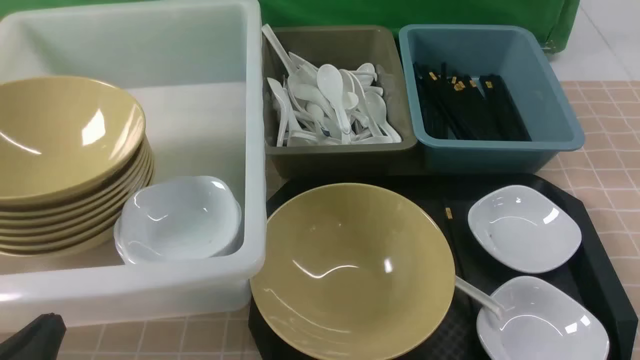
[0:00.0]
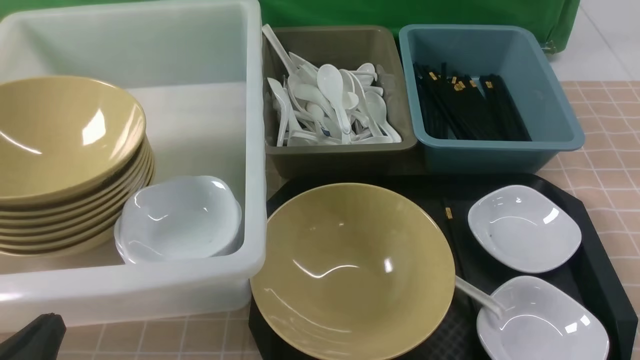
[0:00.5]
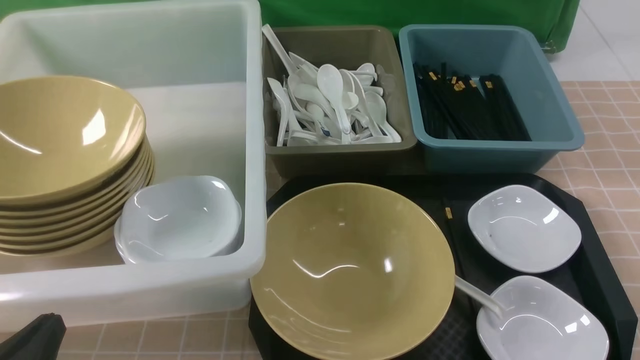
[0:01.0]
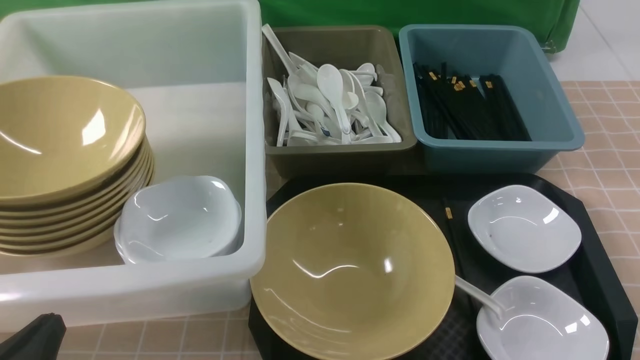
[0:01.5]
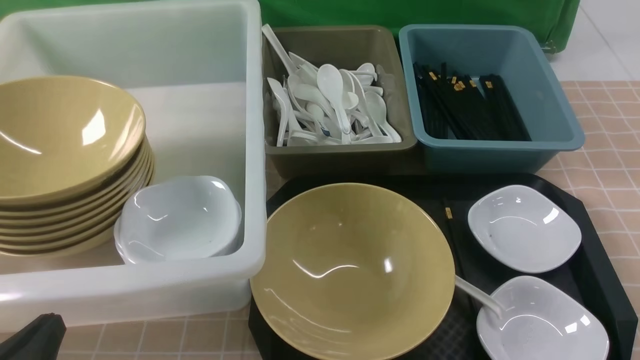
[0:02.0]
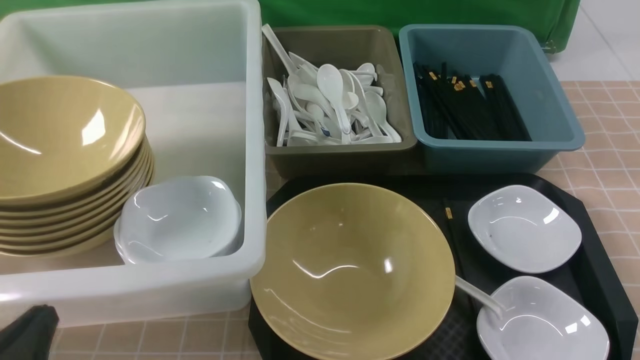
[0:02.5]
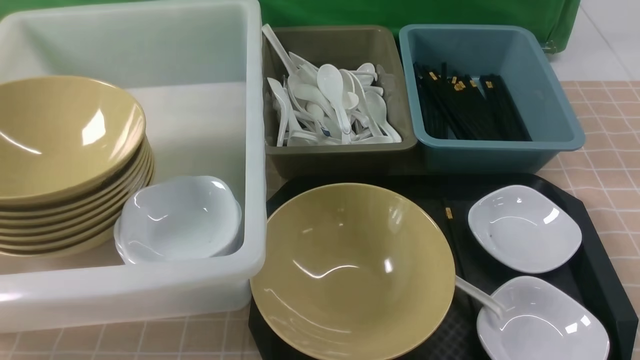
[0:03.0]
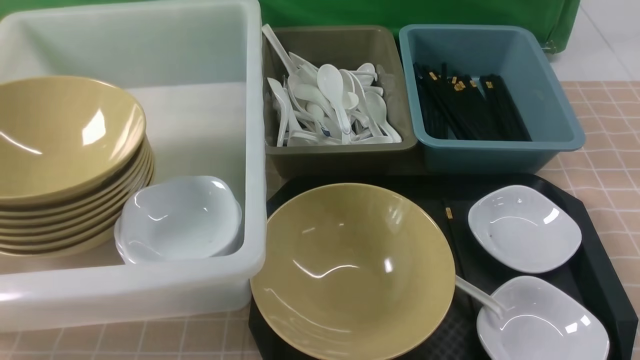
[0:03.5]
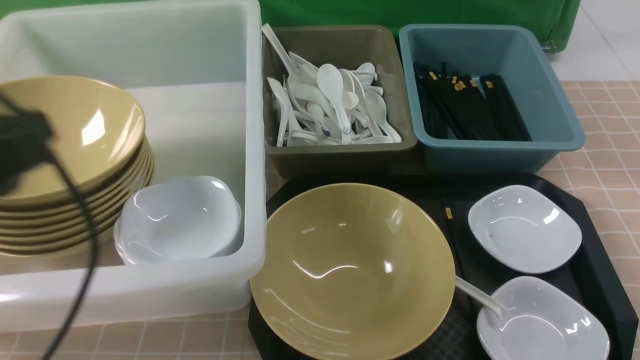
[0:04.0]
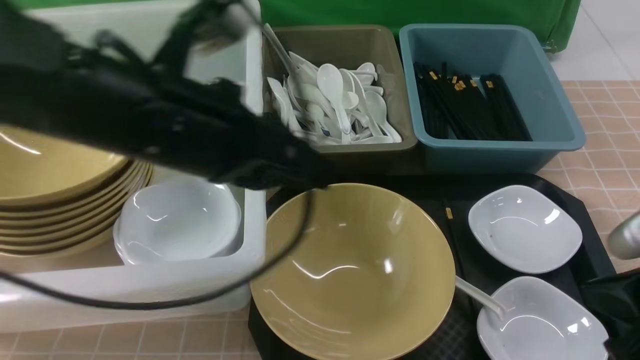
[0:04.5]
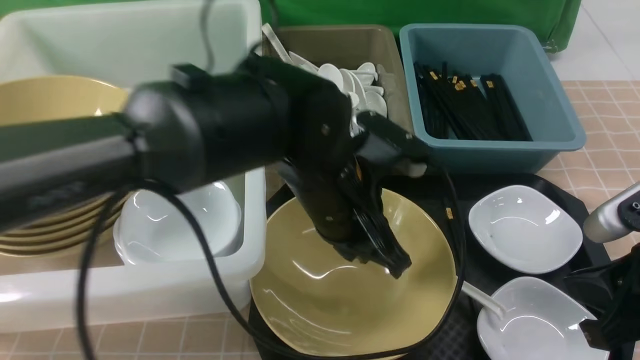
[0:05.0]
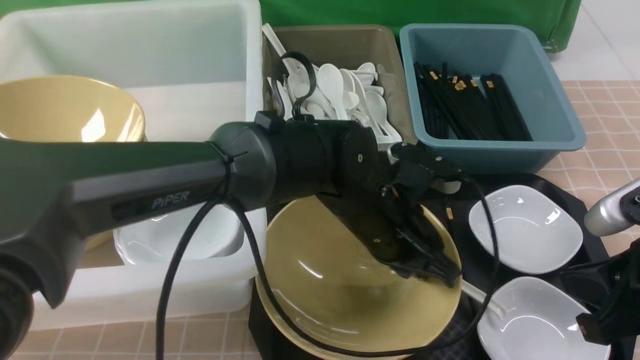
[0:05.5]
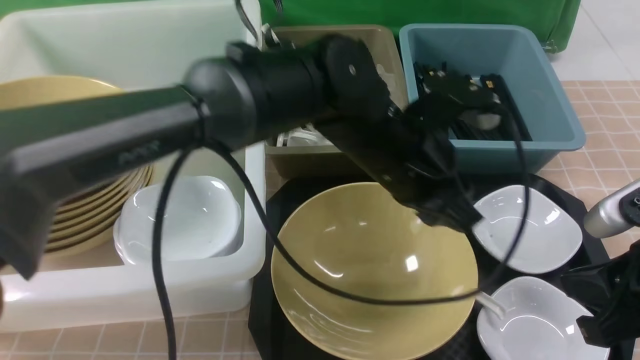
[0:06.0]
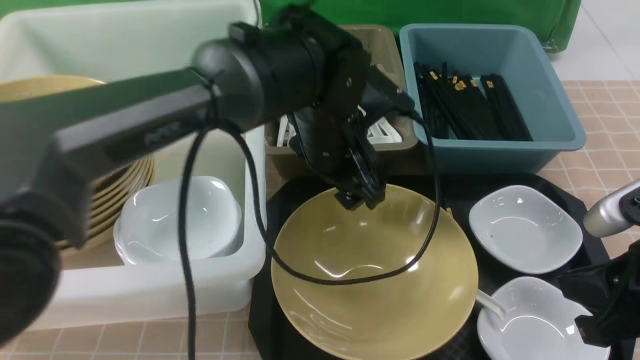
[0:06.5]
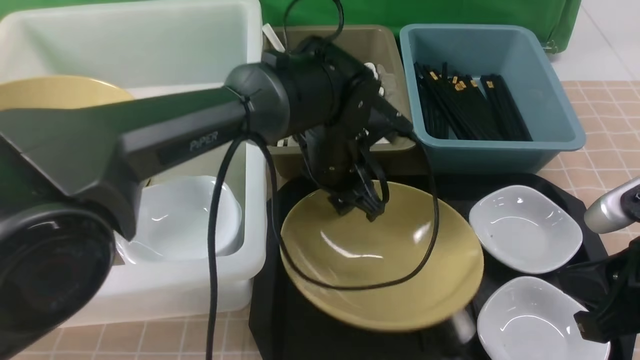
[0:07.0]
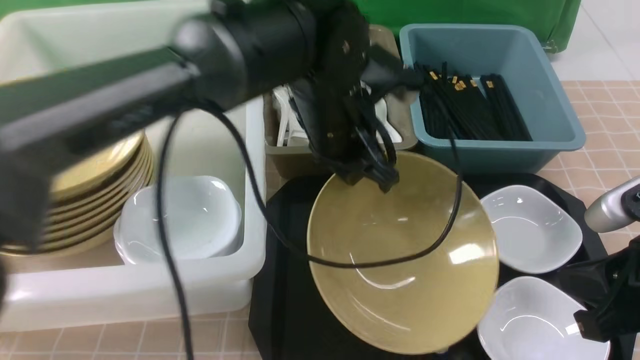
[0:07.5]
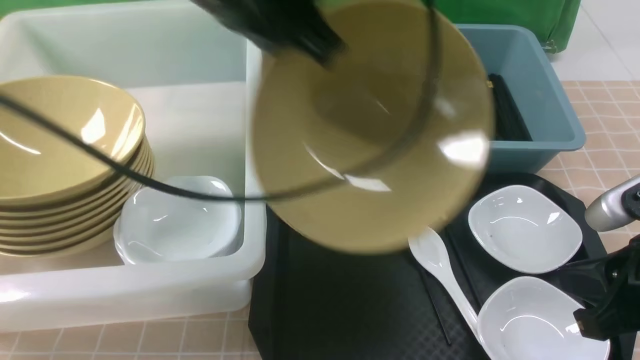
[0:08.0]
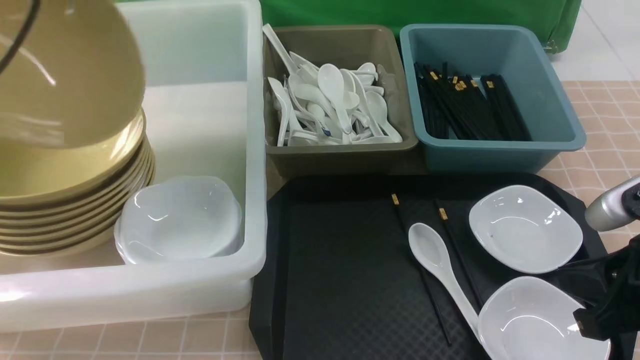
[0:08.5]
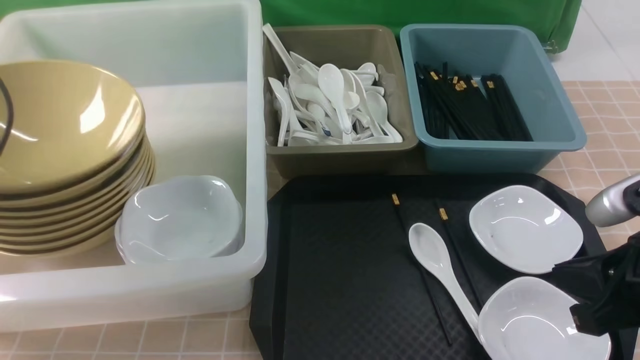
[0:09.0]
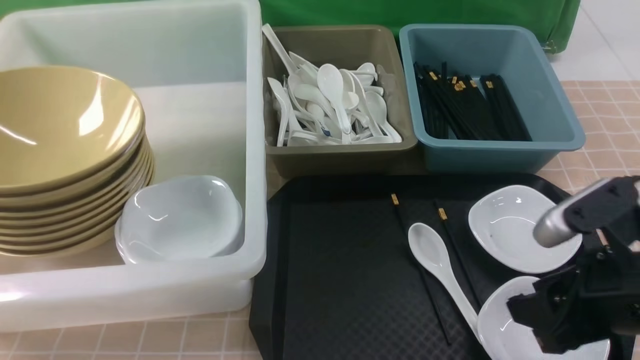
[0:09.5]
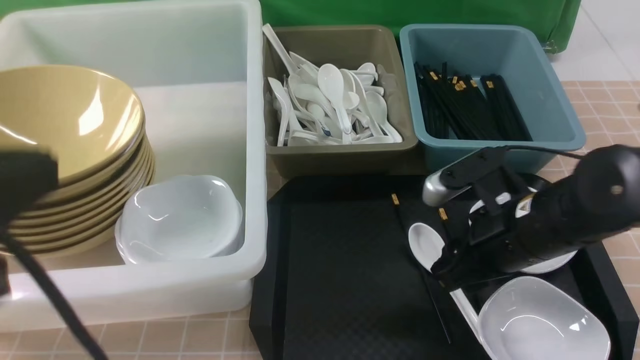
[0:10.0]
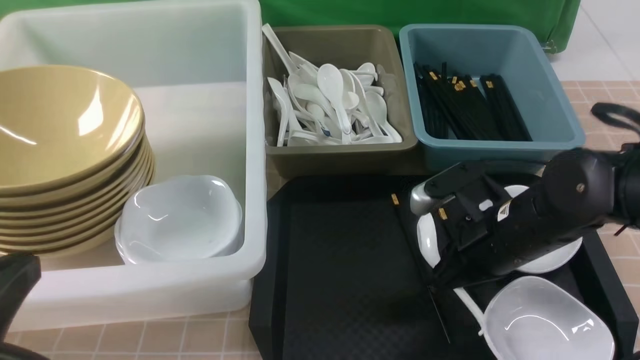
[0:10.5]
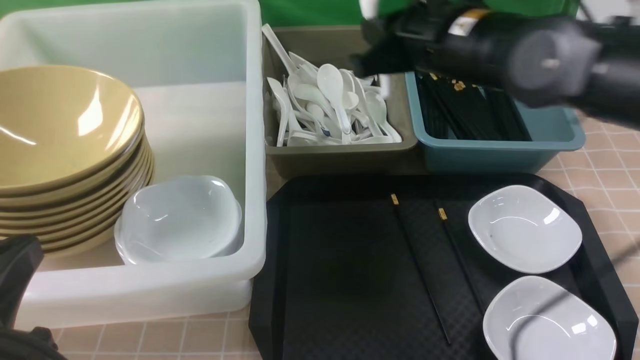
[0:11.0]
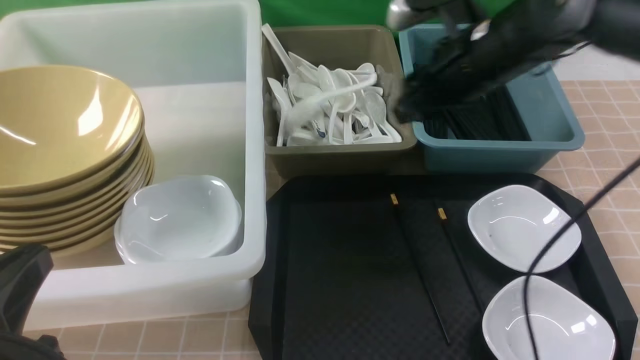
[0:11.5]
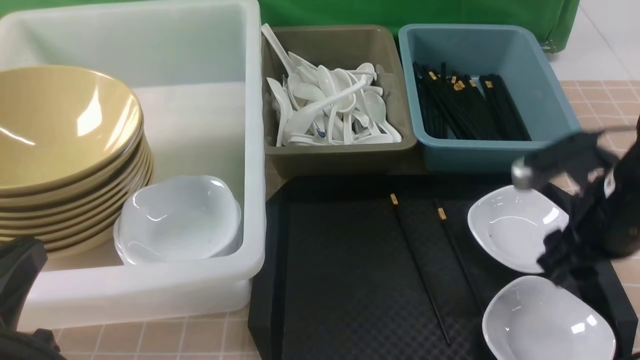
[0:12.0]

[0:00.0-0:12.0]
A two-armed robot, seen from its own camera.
Task of the whole recording: on brown table put chopsticks spoon bowls plates into blue grey white boxes.
Step, 0:00.0 to 0:07.0: use the left arm to grab the yellow noodle bowl on the left.
Step, 0:07.5 to 0:09.0: use the left arm to put the noodle bowl into the large storage box on the left.
Step, 0:09.5 to 0:10.5: use the right arm to grab the soup spoon in the middle.
Step, 0:11.0 to 0:11.5: use the right arm to put the soup spoon into the small storage box in the middle.
0:02.0 to 0:04.0: The right gripper goes approximately 15 cm upward, while the left gripper is displaced upward and forward by roughly 20 cm.
0:04.0 to 0:06.0: The left gripper moves to the right and forward, approximately 30 cm, and opens up, while the right gripper is displaced downward and to the left by approximately 10 cm.
0:06.0 to 0:08.0: The left gripper goes roughly 25 cm upward and to the left, and closes.
0:08.0 to 0:10.0: The right gripper shifts some 15 cm forward, to the left and downward, and opens up. Meanwhile the left gripper goes some 20 cm backward and to the left, and opens, then closes once more.
0:10.0 to 0:12.0: The left gripper goes some 10 cm downward, while the right gripper shifts some 10 cm to the right, and closes, then opens again.

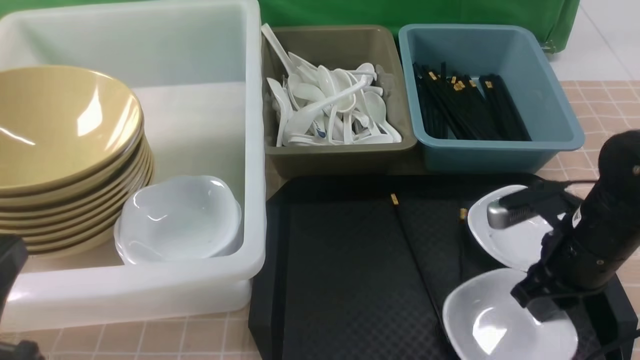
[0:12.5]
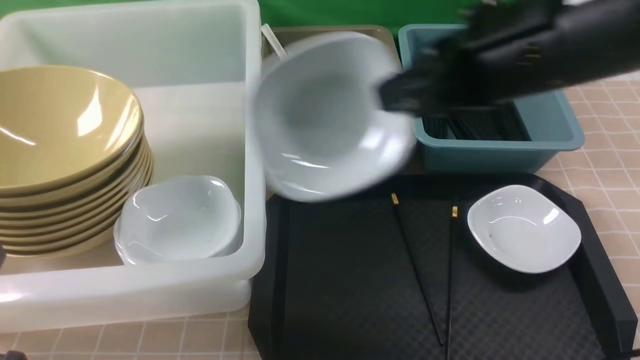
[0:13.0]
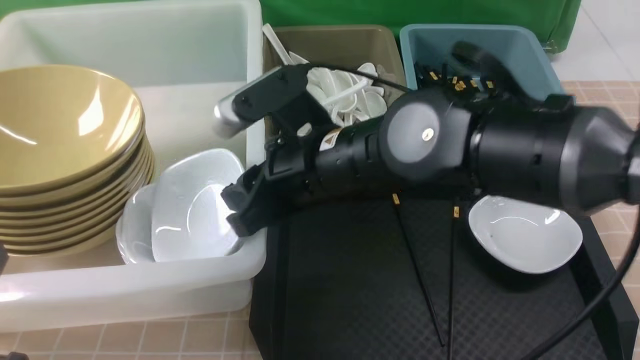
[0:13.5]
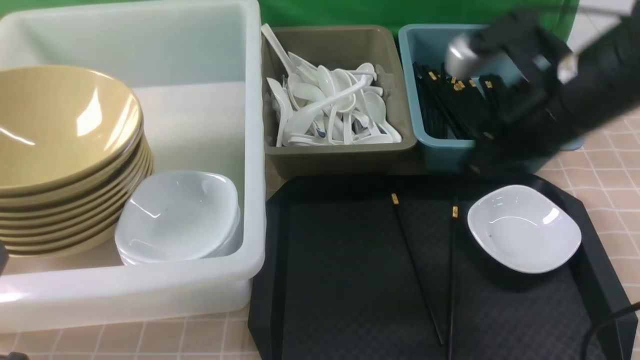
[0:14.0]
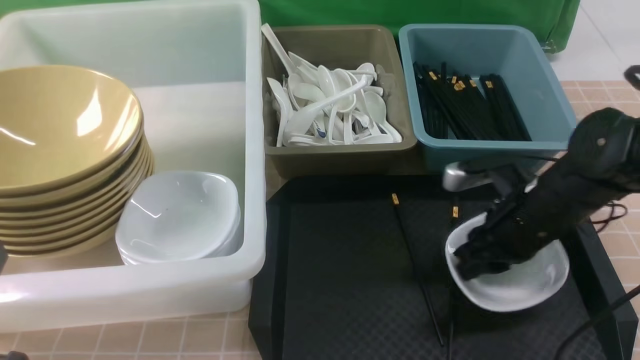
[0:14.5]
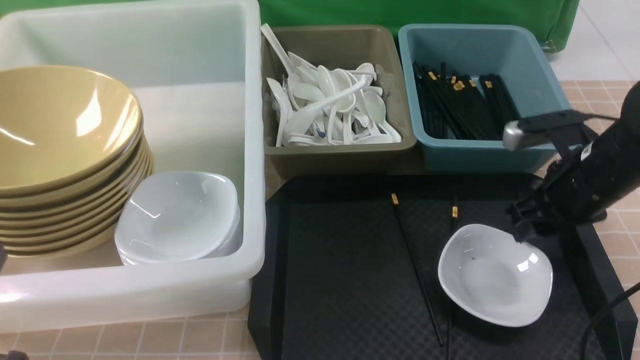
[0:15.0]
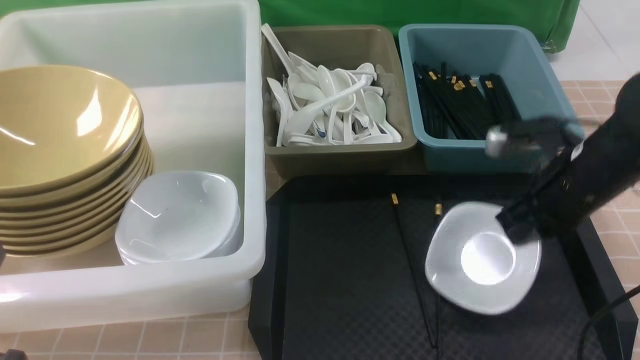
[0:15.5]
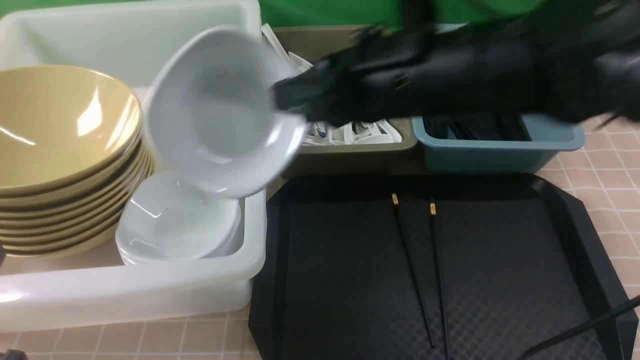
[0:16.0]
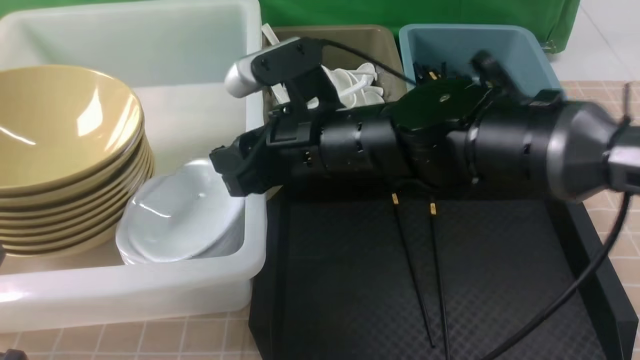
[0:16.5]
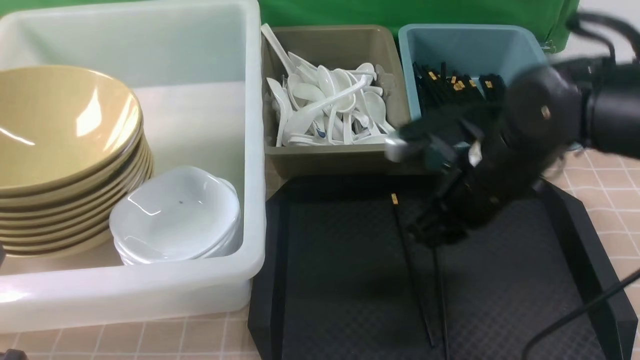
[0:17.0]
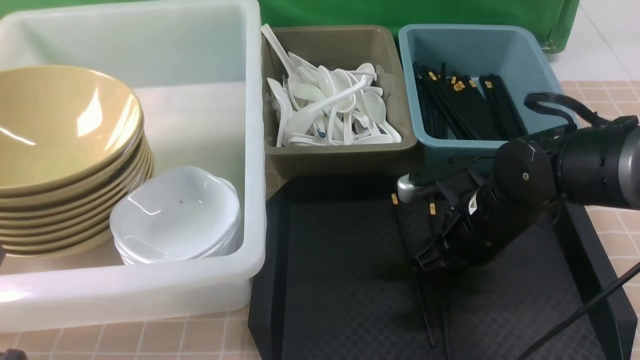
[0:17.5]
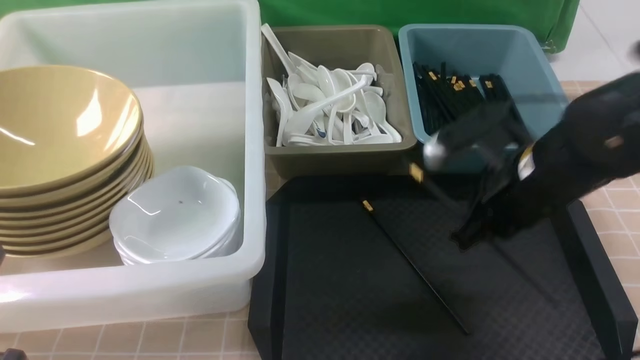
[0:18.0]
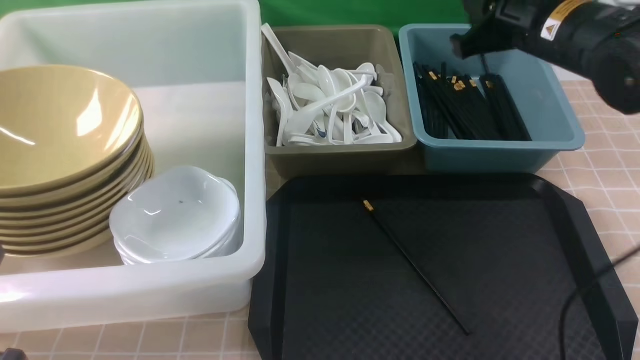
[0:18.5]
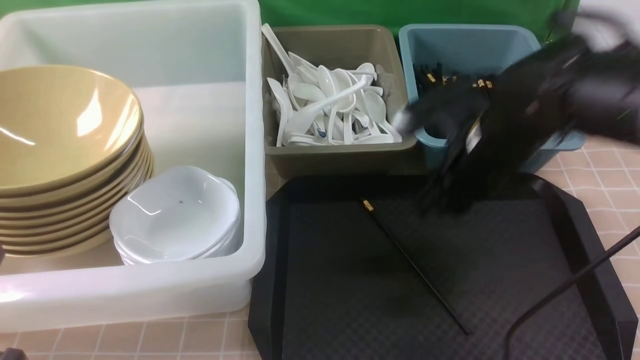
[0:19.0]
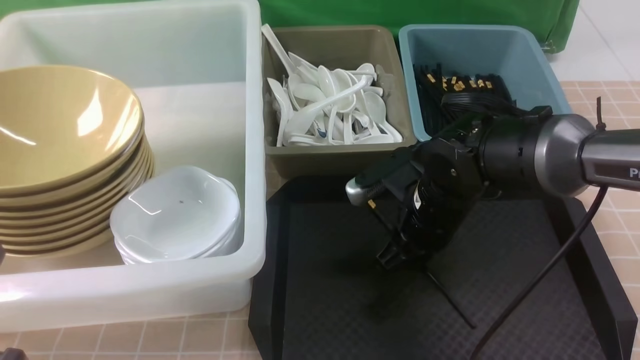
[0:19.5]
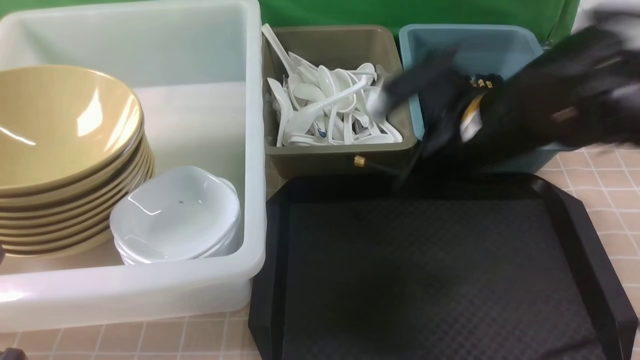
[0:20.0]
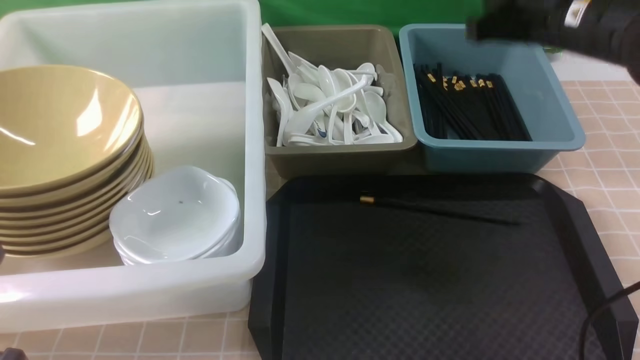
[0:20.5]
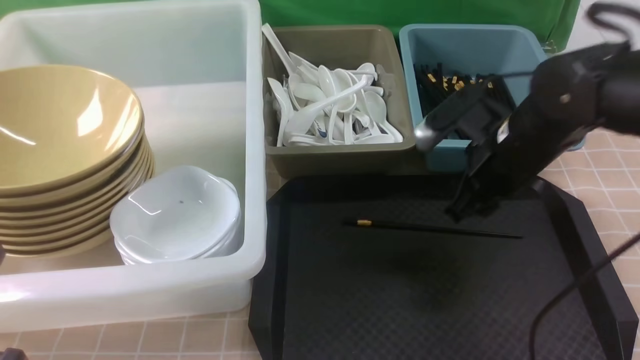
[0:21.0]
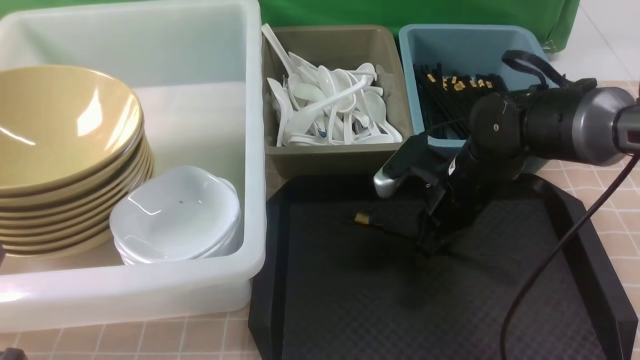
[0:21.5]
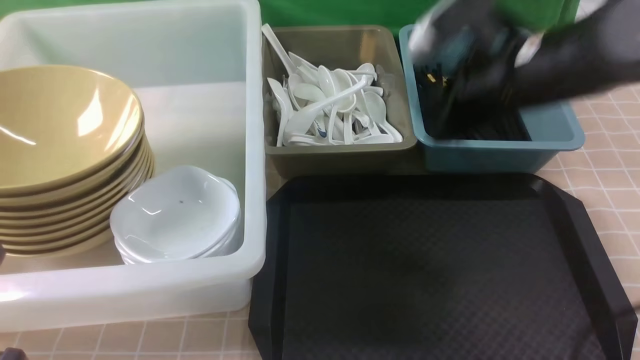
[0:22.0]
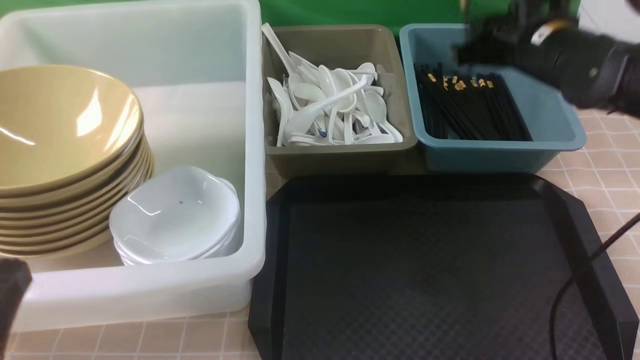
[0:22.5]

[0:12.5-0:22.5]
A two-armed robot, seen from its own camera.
Task of the whole recording: on brown table put chopsticks spoon bowls plates into blue grey white boxes.
Step, 0:13.0 to 0:13.5: use the right arm to put the plate into the large storage box on the left.
Step, 0:14.0 to 0:15.0: use the right arm to grab the plate.
Step, 0:15.5 to 0:16.5: use the right arm to put the plate into the large storage box on the left.
Step, 0:17.0 to 0:17.5: use the right arm to grab a chopstick.
Step, 0:18.0 to 0:18.5: use the right arm to put a chopstick into the small storage box on the right.
Step, 0:19.0 to 0:21.5: use the right arm to grab a chopstick.
0:12.5 to 0:14.5: The right gripper travels to the left and back again, some 20 cm each way.
0:14.5 to 0:16.5: The right gripper moves to the left and upward, approximately 20 cm, and closes and opens again.
0:16.5 to 0:18.5: The right gripper heads to the right and forward, covering roughly 20 cm, and closes its fingers.
0:18.5 to 0:20.5: The right gripper travels downward and back again, some 15 cm each way.
0:20.5 to 0:22.5: The right gripper shifts approximately 5 cm forward, travels downward and back again, some 15 cm each way, and opens.
